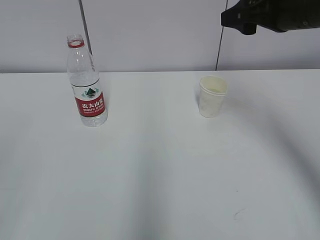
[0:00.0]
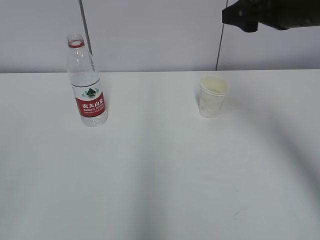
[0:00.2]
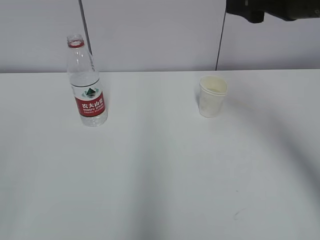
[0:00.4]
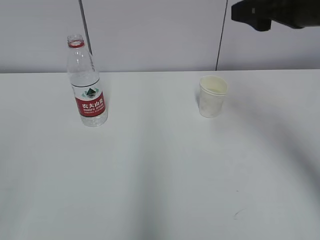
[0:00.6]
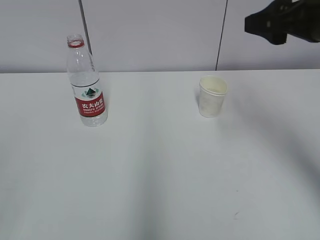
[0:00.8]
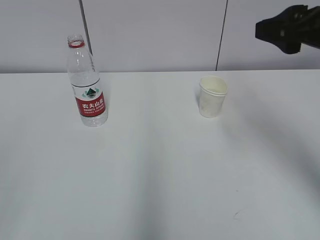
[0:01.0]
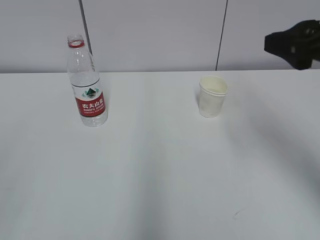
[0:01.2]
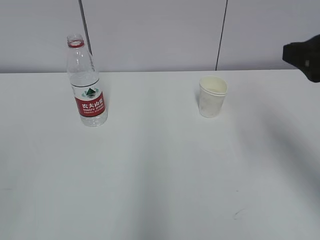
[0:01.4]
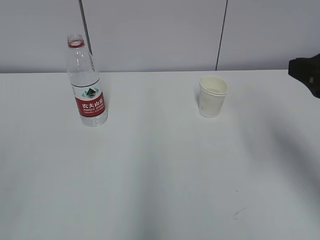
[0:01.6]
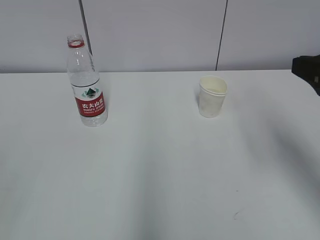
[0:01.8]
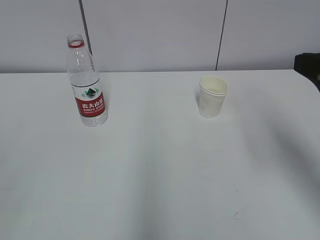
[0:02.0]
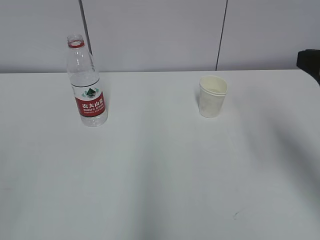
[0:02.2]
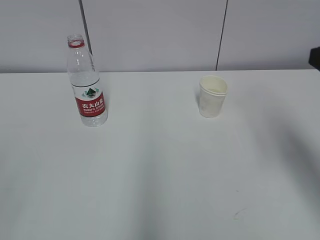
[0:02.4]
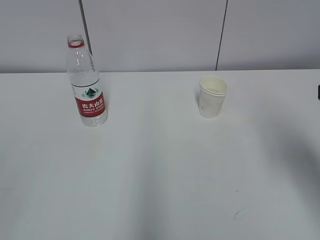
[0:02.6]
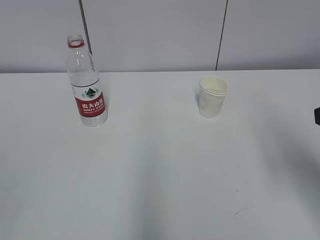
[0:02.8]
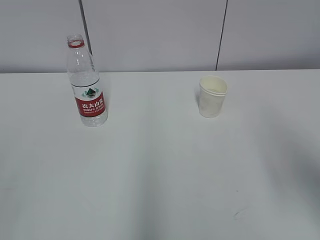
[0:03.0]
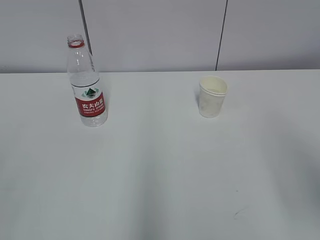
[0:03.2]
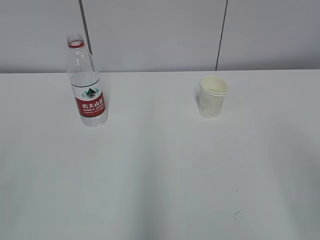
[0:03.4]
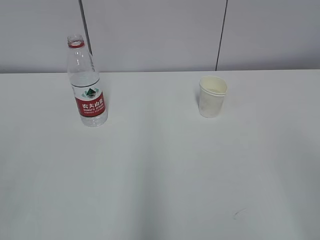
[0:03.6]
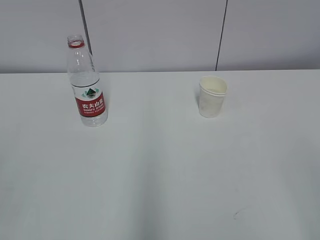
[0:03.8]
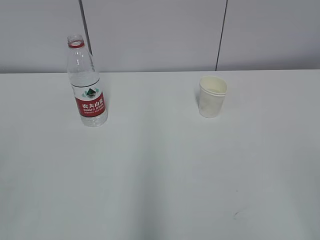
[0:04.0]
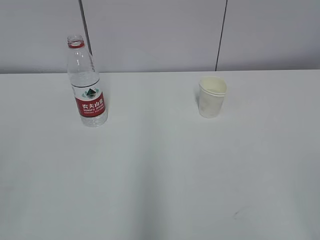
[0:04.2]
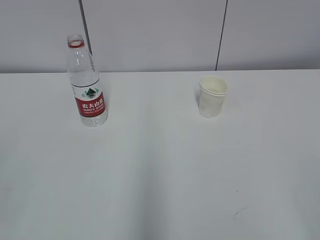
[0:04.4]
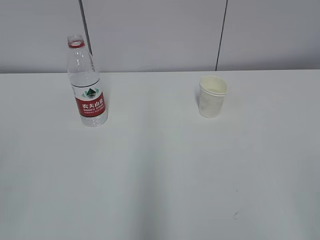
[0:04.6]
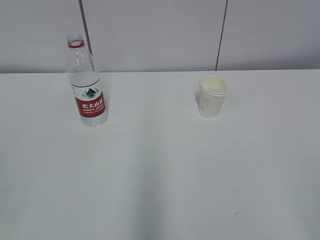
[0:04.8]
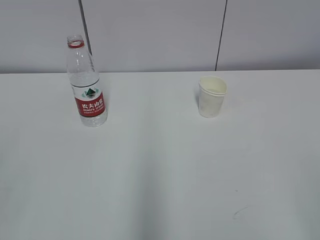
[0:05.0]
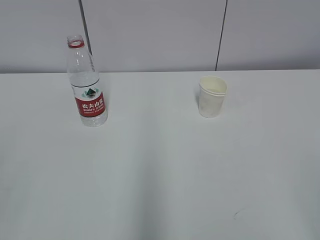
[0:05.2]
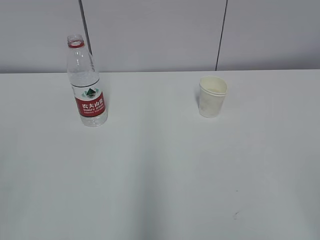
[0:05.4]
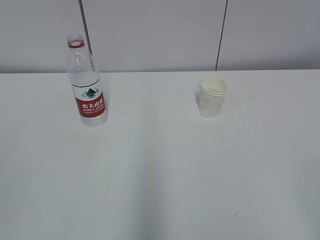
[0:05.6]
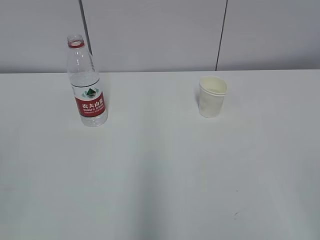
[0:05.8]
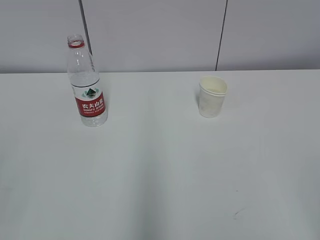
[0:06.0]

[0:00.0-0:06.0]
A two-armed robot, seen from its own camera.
0:00.0 to 0:01.6: The right gripper goes about 15 cm backward.
0:01.6 to 0:03.0: The right gripper travels backward by roughly 5 cm.
0:03.0 to 0:04.4: The right gripper is displaced backward by about 15 cm.

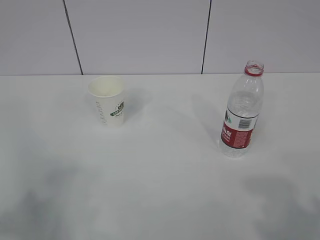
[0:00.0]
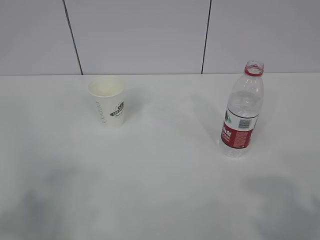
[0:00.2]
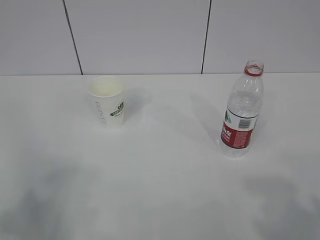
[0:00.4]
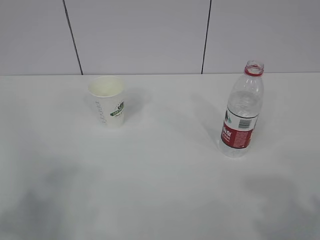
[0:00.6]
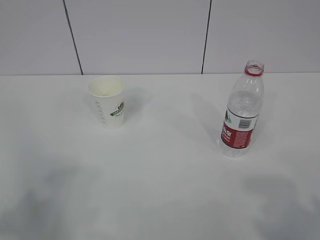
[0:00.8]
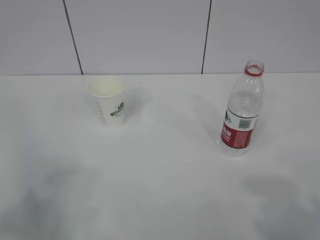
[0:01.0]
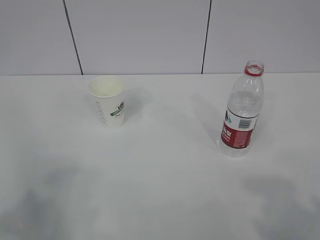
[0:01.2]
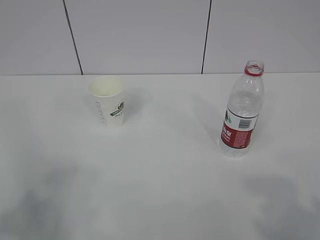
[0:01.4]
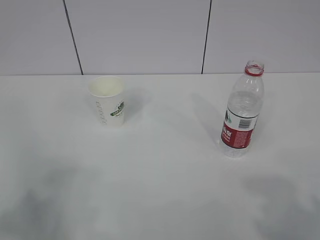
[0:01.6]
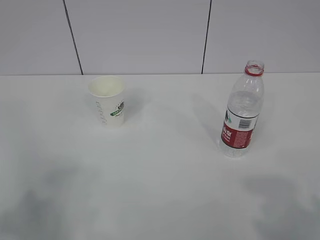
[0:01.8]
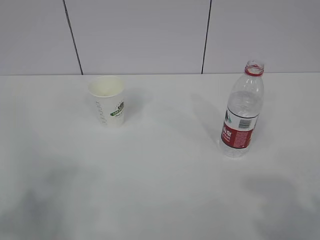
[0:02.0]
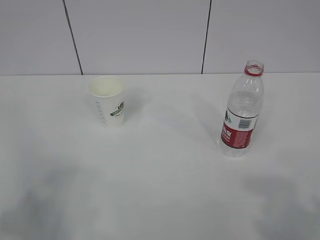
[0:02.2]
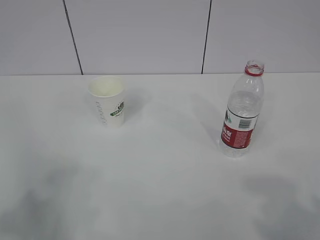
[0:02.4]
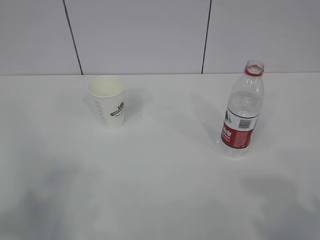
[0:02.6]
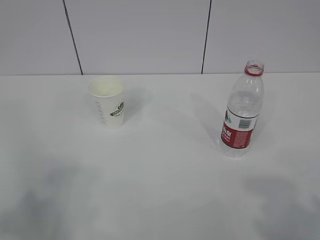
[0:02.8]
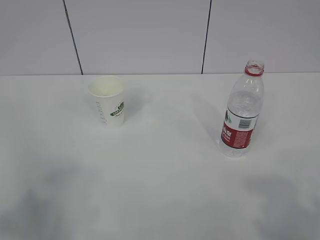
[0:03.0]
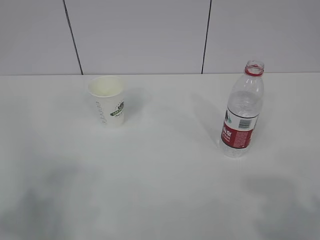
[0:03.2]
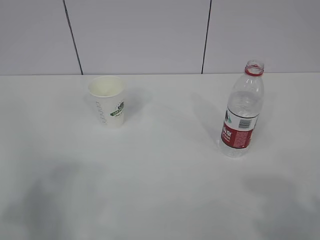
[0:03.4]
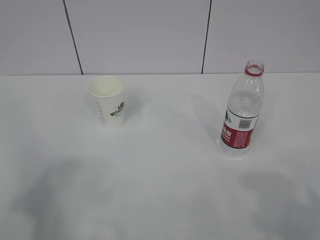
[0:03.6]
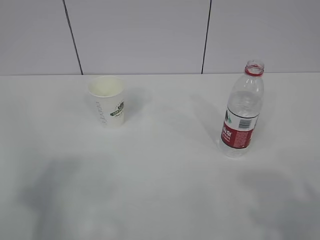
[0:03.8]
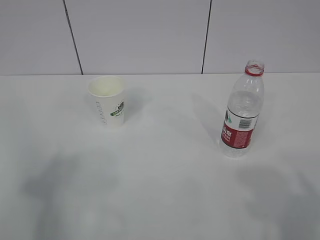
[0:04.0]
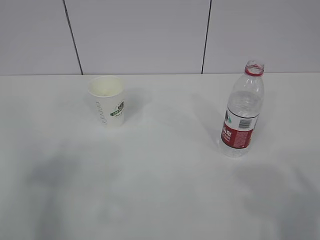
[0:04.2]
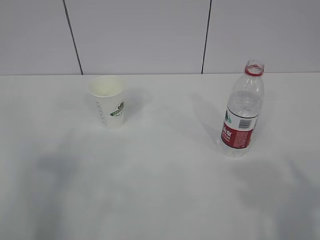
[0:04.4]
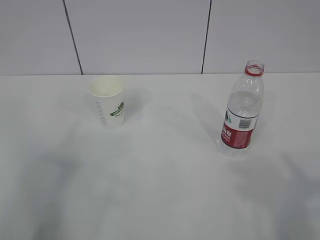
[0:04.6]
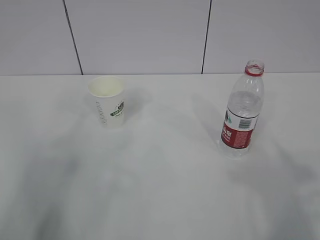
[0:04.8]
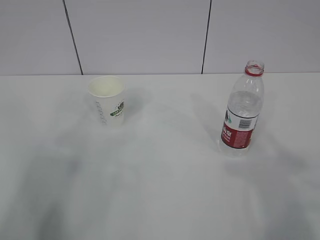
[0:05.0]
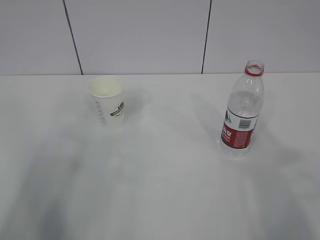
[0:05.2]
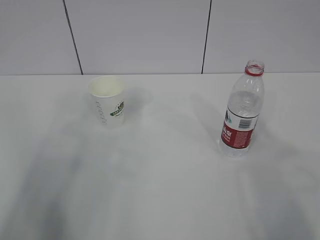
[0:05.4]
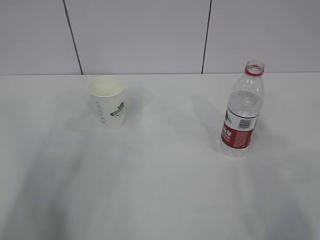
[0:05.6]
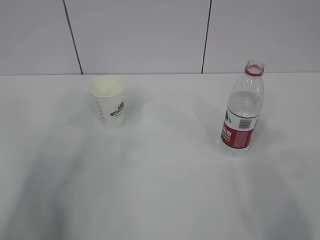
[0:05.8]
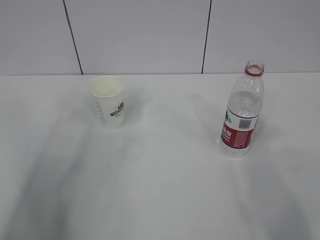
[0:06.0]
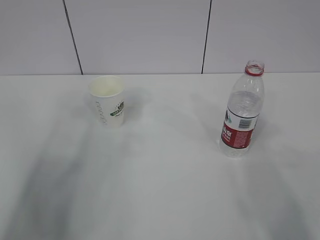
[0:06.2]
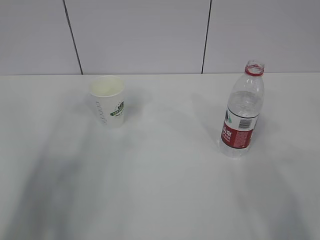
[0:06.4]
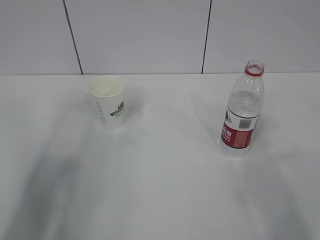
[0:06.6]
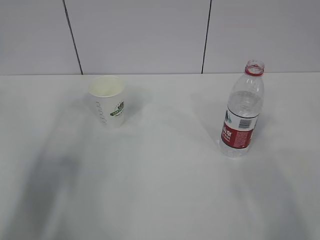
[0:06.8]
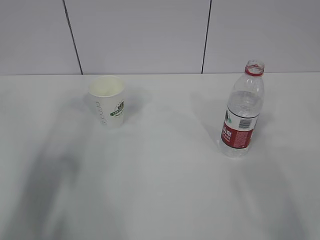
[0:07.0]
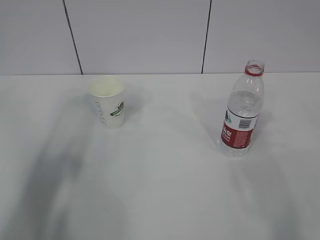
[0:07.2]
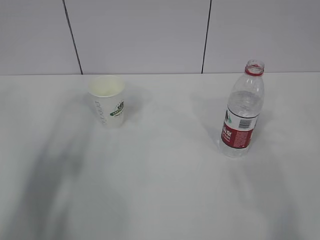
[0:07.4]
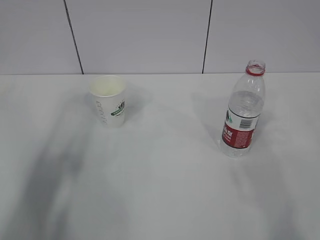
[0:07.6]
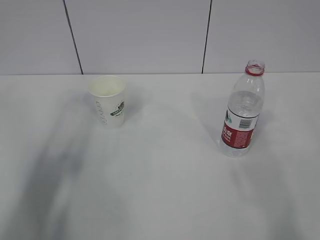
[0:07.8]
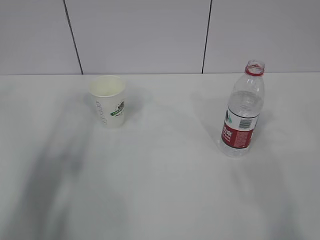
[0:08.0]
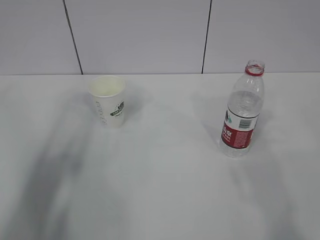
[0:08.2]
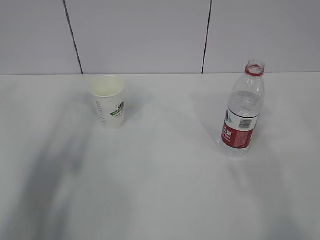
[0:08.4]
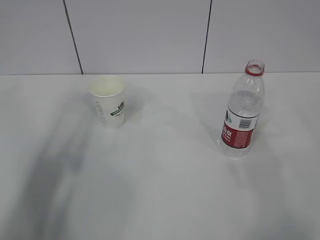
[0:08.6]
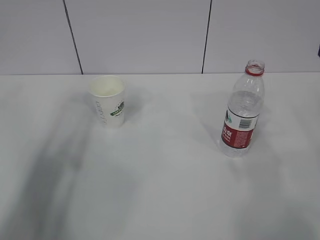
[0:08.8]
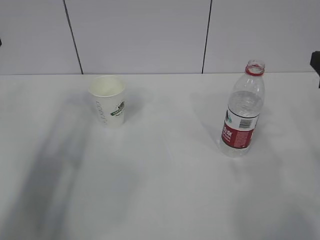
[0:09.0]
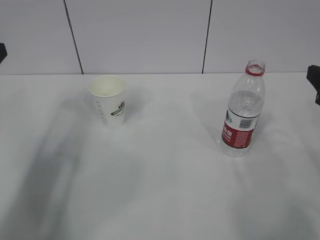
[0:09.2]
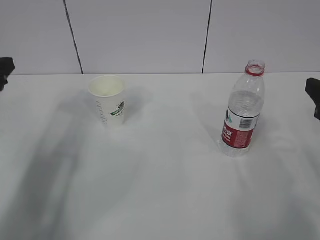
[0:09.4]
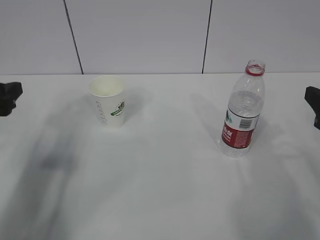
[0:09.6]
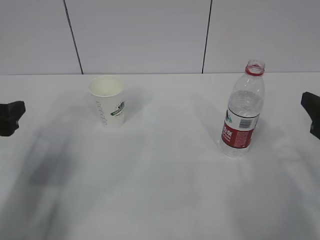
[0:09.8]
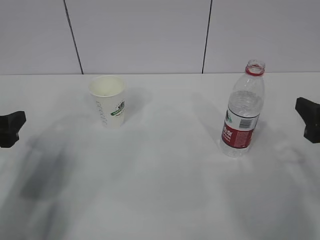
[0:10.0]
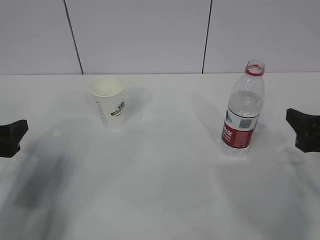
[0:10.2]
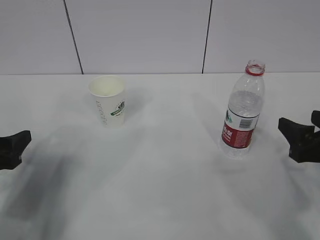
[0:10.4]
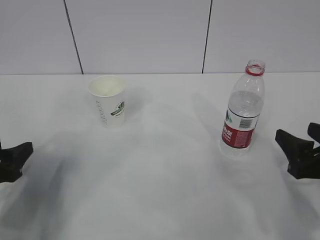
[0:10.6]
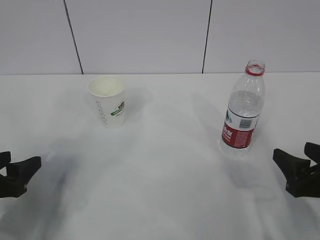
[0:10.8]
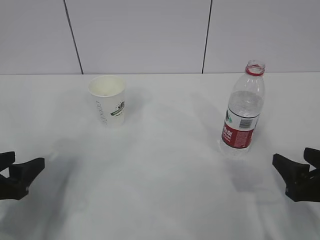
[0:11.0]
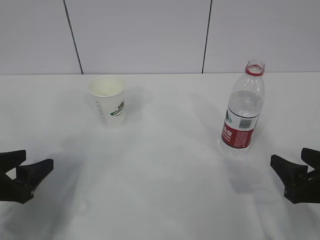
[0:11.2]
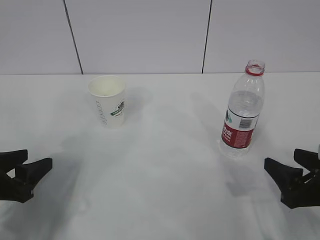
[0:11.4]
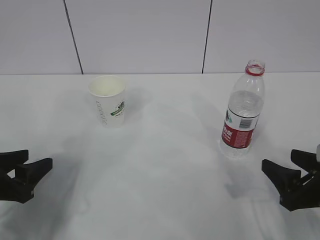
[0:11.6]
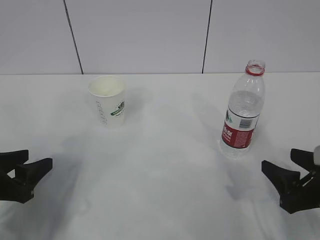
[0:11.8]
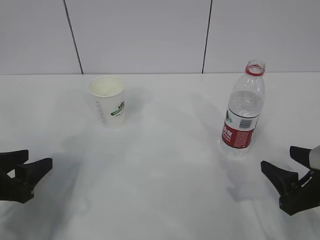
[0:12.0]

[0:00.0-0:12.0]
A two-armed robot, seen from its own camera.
0:01.6 to 0:03.0: Neither gripper changes place.
0:09.0 to 0:10.4: The grippers both shift downward by about 10 cm.
0:10.4 to 0:12.0: The left gripper closes up, while the right gripper moves downward, approximately 5 cm.

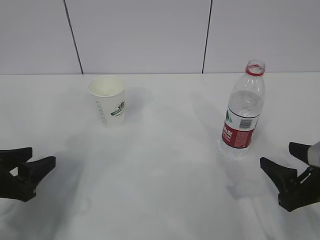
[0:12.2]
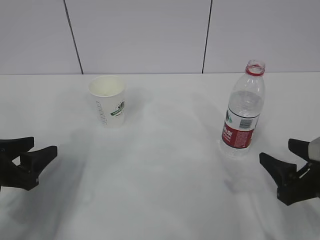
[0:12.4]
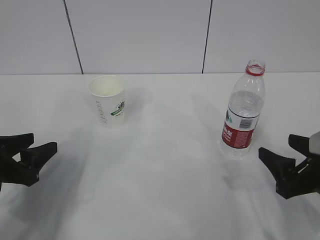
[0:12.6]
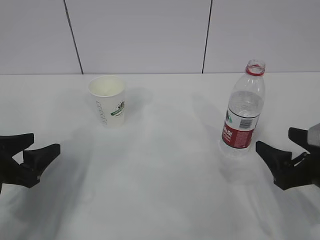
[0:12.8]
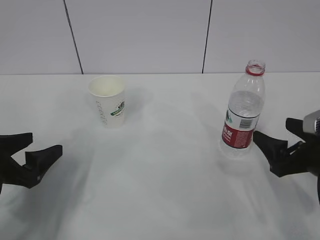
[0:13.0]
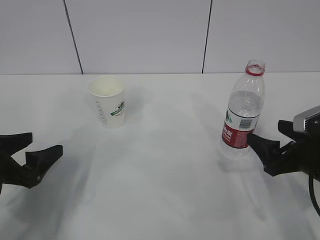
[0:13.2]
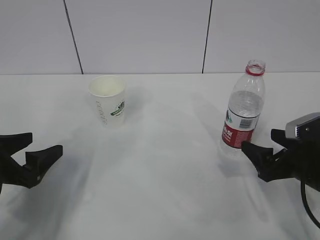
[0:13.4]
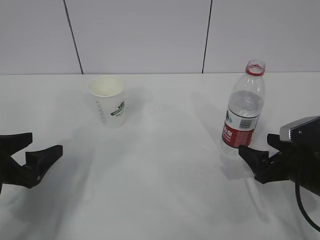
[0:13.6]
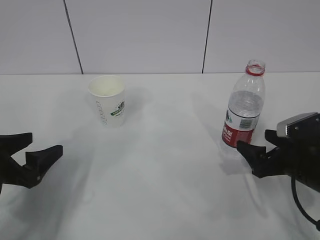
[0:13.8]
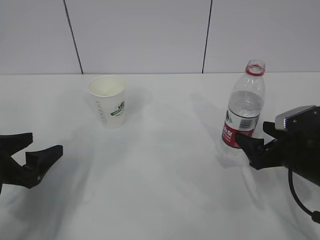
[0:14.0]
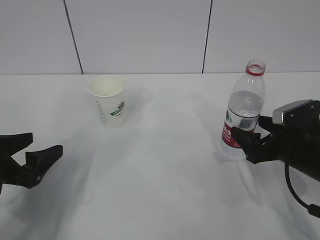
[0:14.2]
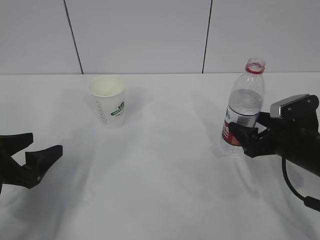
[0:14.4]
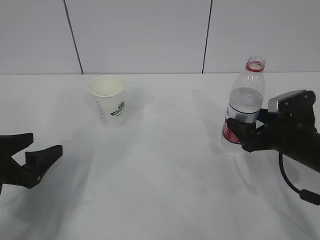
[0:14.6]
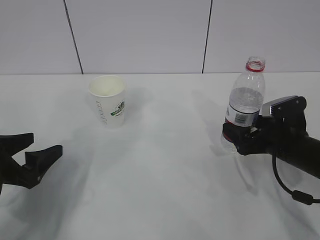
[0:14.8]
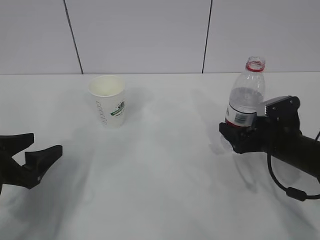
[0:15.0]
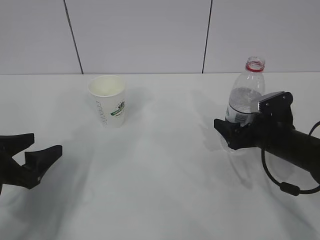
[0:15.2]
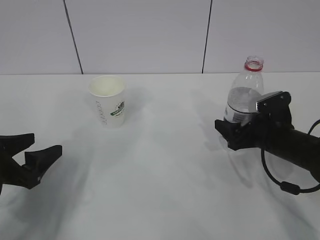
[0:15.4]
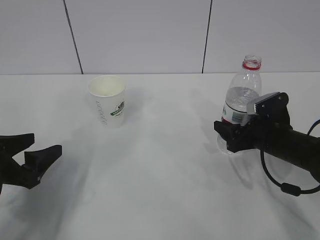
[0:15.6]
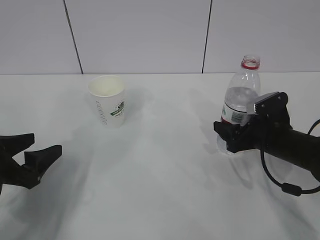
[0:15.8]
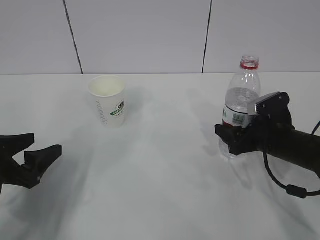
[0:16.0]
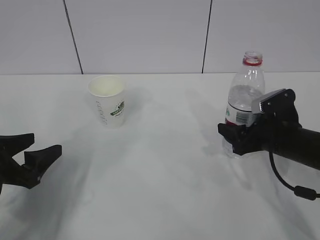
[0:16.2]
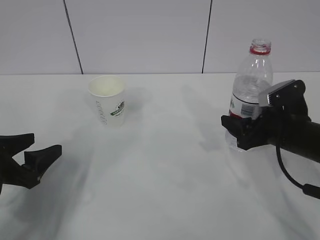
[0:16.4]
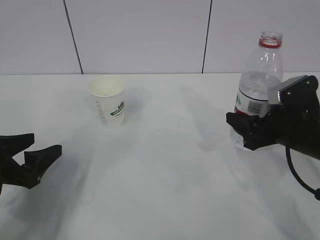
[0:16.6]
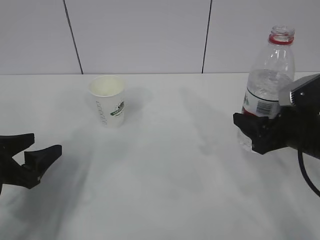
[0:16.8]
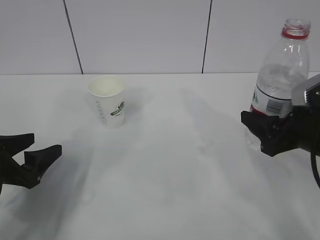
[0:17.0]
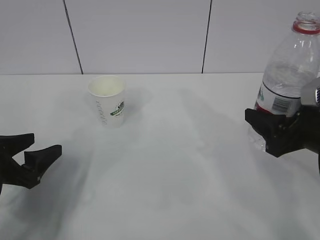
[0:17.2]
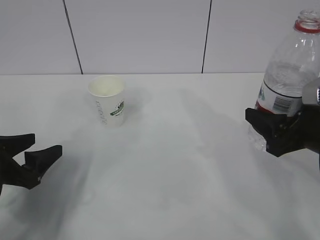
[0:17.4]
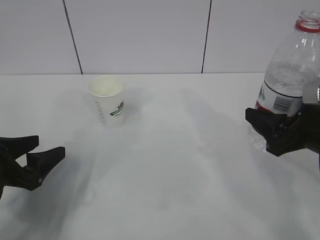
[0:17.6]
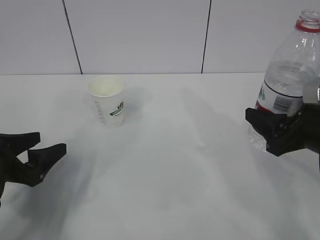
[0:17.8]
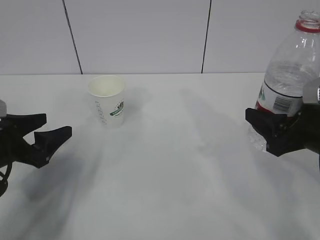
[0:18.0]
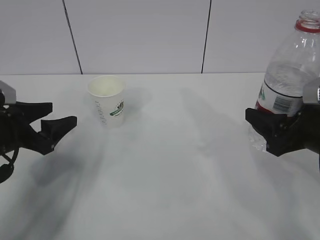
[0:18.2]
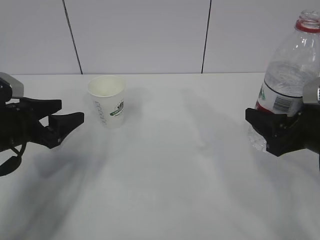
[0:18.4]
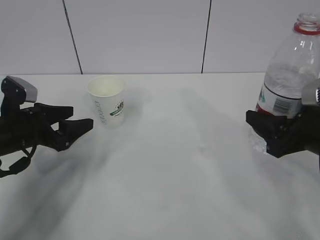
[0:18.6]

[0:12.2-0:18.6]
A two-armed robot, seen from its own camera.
0:12.2 to 0:13.8: The right gripper goes about 5 cm forward, and opens its fingers; the left gripper opens up.
0:13.8 to 0:15.4: The right gripper goes about 10 cm forward.
0:15.4 to 0:17.0: The right gripper travels upward and backward by about 15 cm, and closes up.
0:17.0 to 0:18.6: The left gripper is displaced forward by approximately 10 cm.
